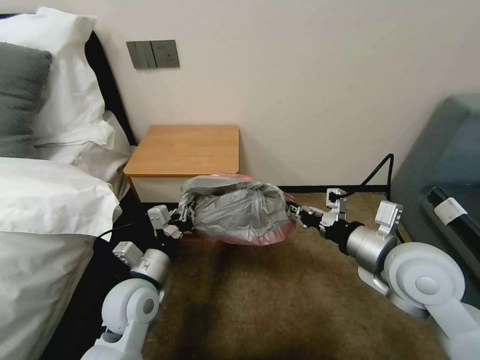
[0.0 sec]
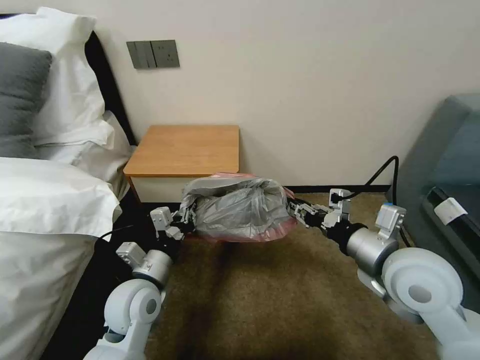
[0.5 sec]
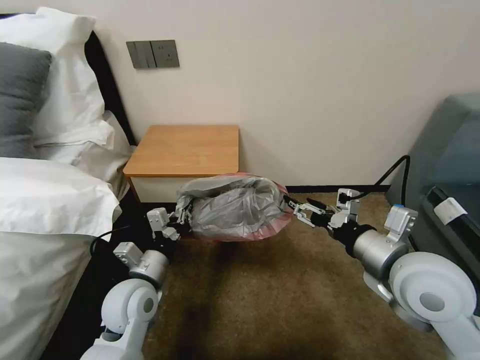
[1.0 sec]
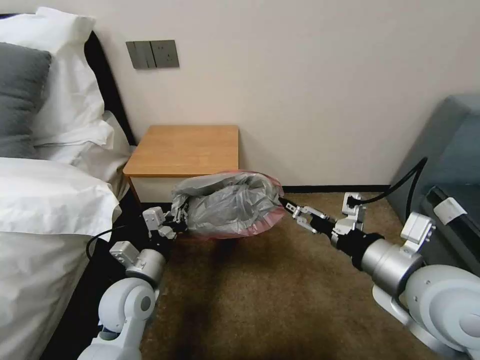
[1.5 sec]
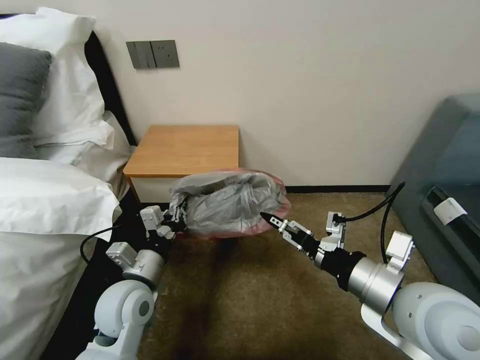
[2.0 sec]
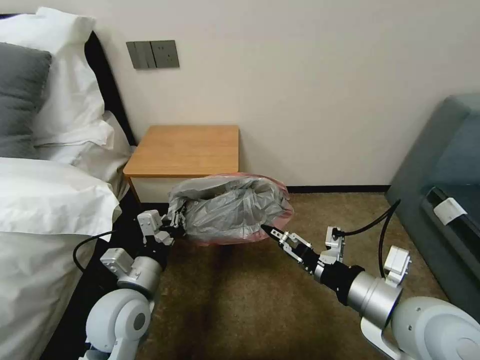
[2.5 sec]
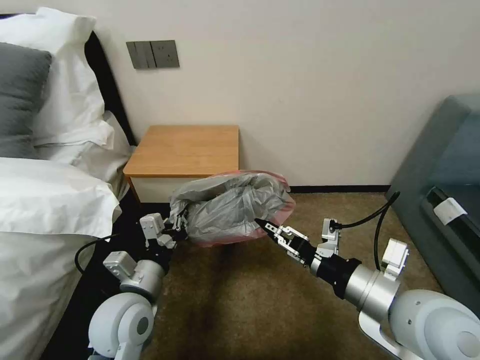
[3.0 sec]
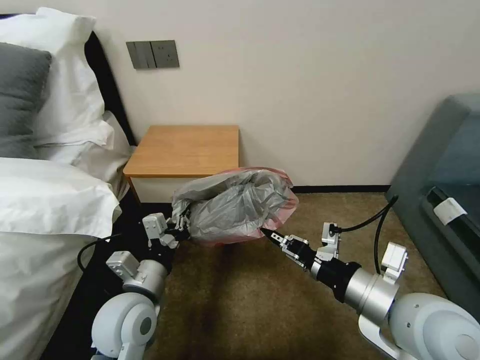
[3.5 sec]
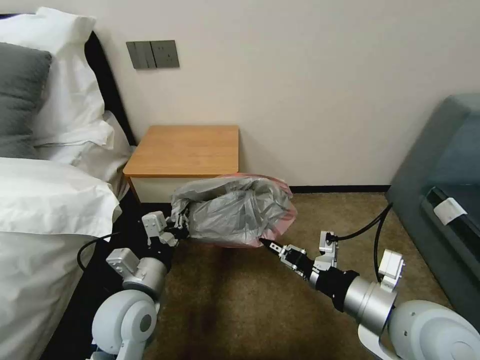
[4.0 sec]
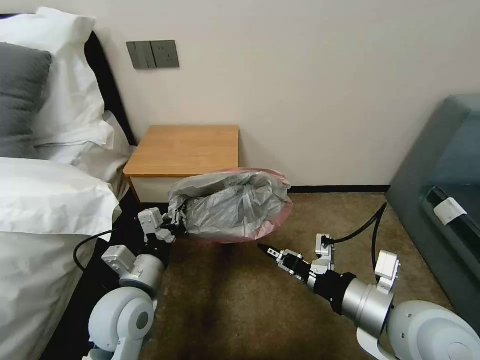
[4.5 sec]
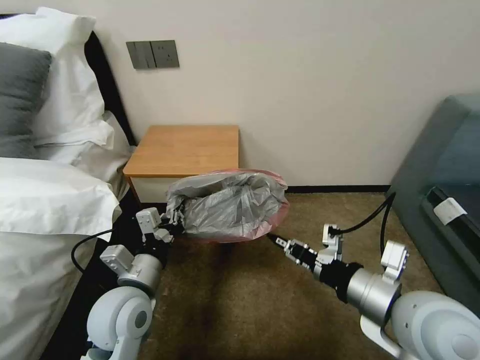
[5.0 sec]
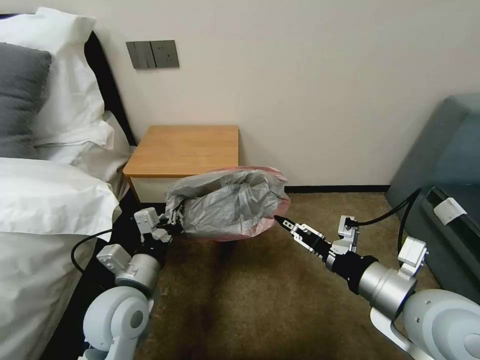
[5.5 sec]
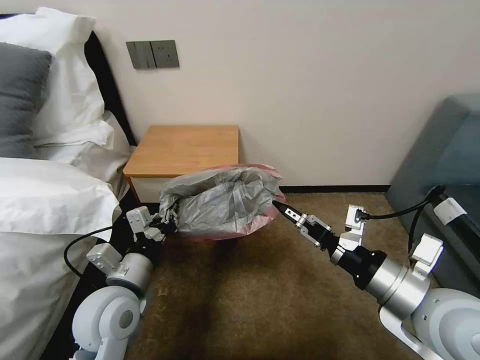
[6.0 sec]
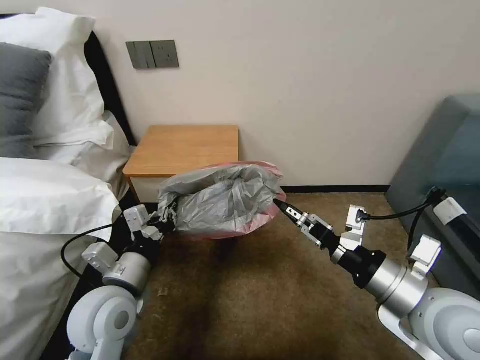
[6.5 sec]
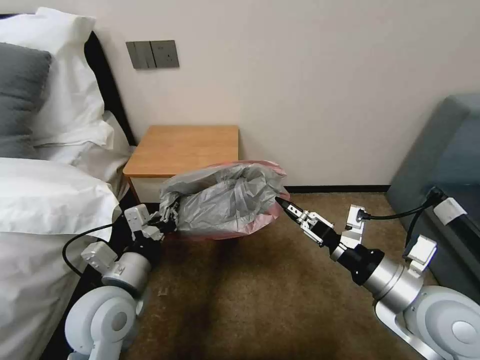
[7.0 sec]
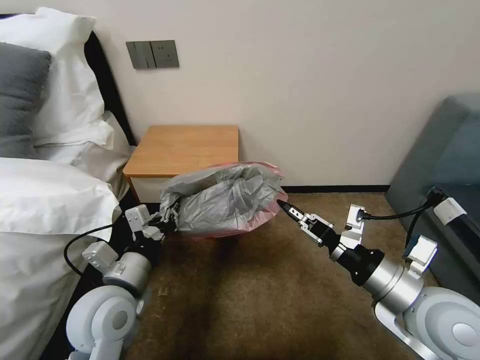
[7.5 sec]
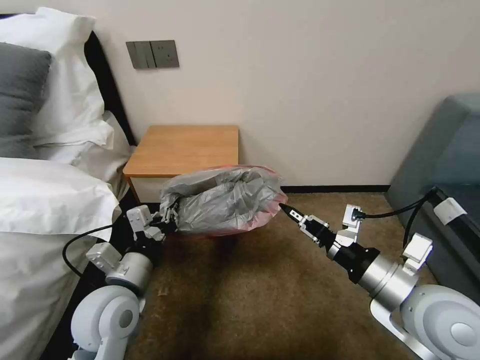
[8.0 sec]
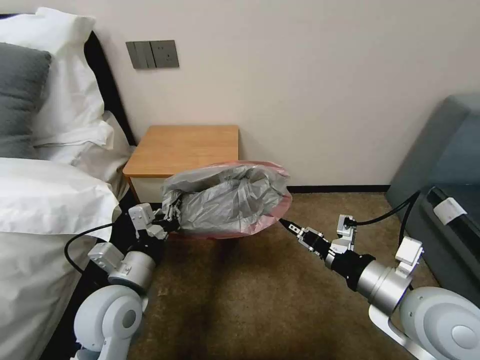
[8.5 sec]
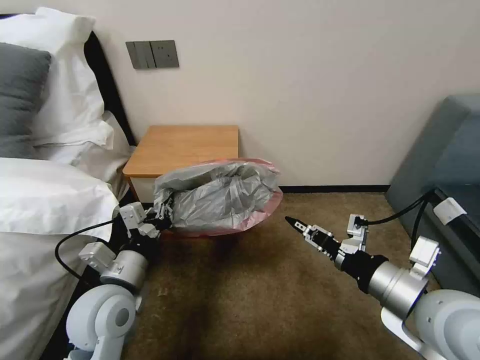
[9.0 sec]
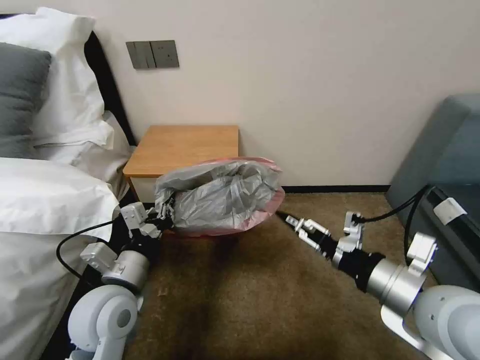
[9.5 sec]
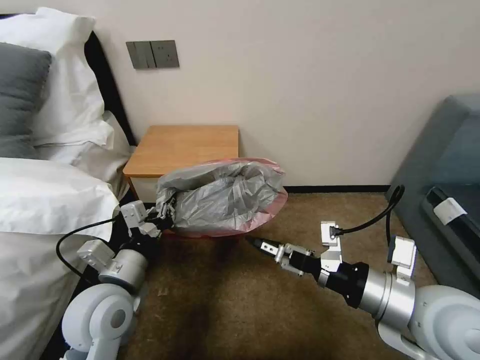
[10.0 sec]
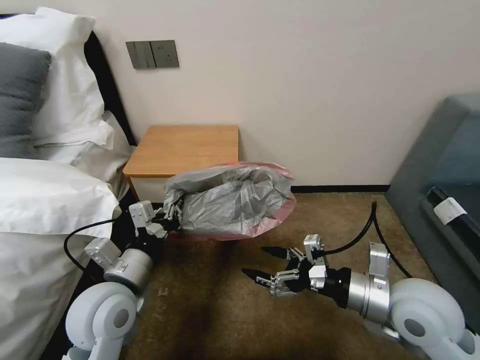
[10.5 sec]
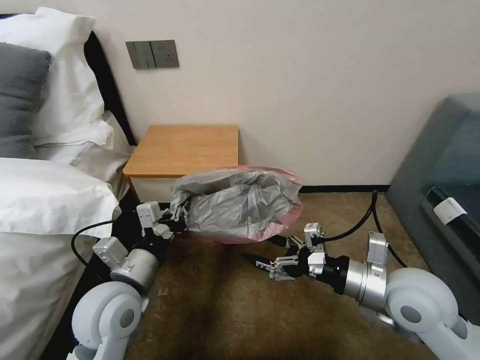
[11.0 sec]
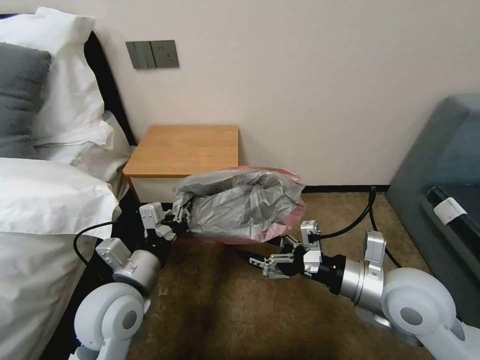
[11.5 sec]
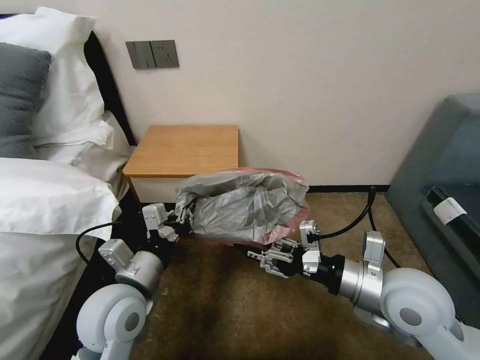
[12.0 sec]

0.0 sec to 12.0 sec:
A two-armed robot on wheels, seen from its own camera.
Task of the whole recording: Pick up the garbage bag from the table and place it over the trash can.
0.0 sec to 2.0 sec: The right gripper moves backward, approximately 5 cm, and opens its fingers.
2.0 sec to 4.0 sec: The right gripper closes up.
4.0 sec to 6.0 sec: The right gripper opens.
6.0 sec to 8.0 sec: The right gripper closes up.
8.0 sec to 10.0 sec: The right gripper opens.
10.0 sec to 12.0 sec: The right gripper shifts by about 5 cm, and closes.

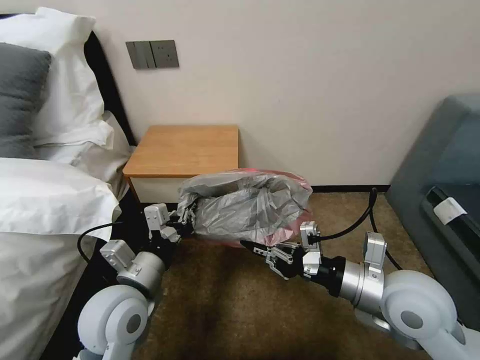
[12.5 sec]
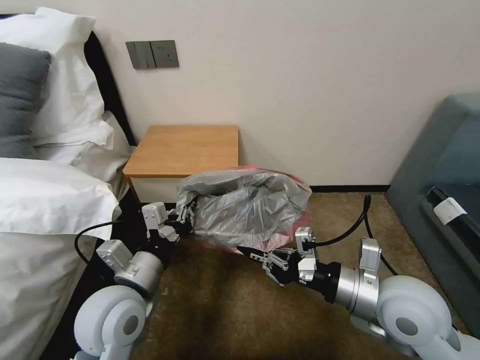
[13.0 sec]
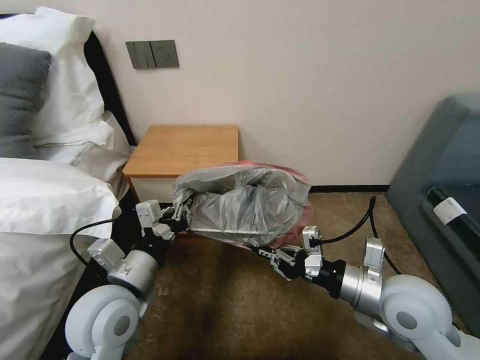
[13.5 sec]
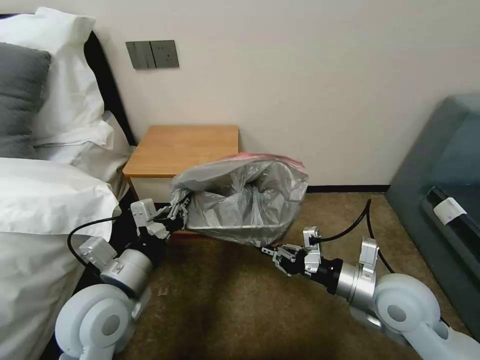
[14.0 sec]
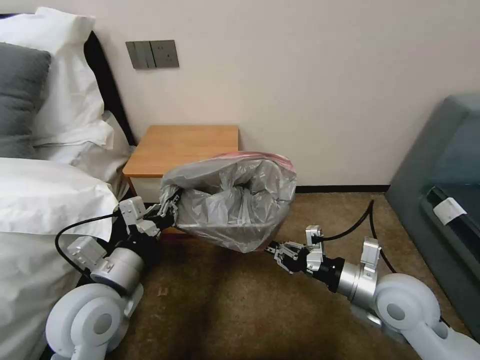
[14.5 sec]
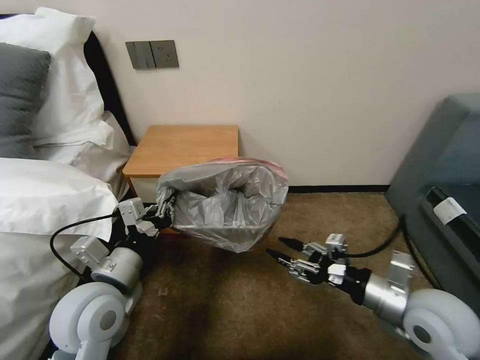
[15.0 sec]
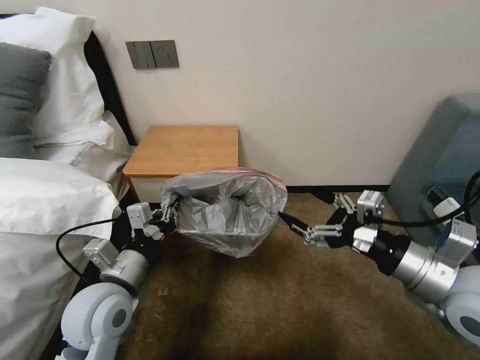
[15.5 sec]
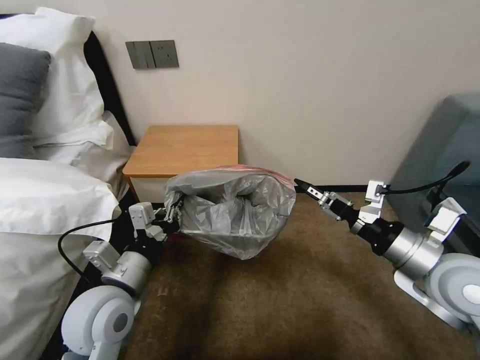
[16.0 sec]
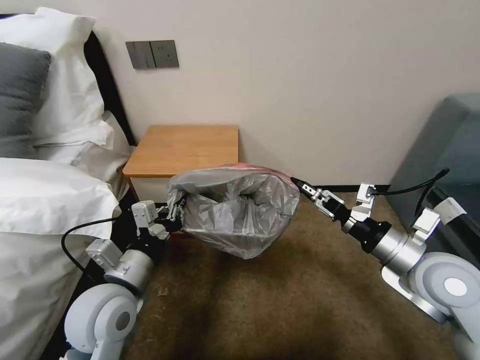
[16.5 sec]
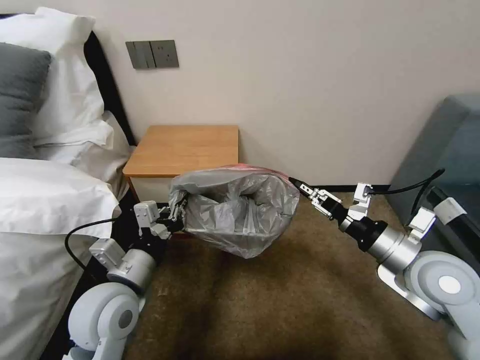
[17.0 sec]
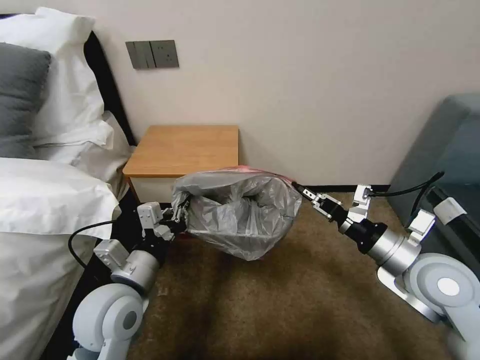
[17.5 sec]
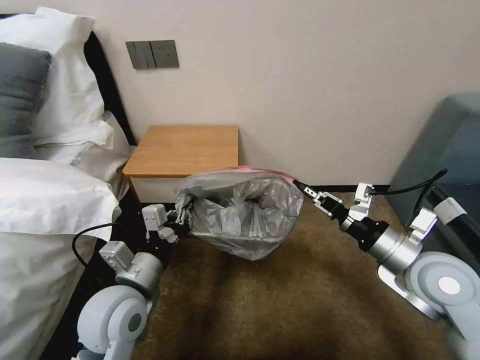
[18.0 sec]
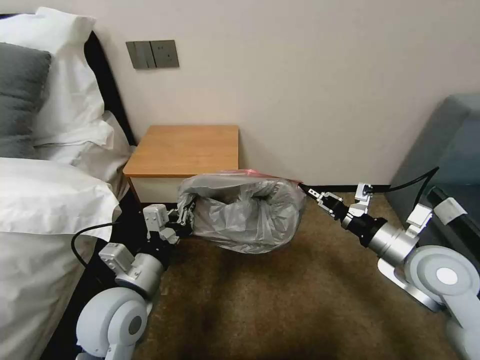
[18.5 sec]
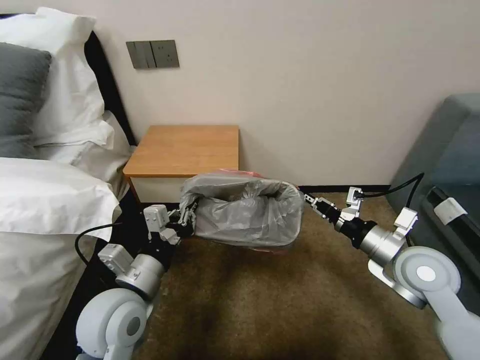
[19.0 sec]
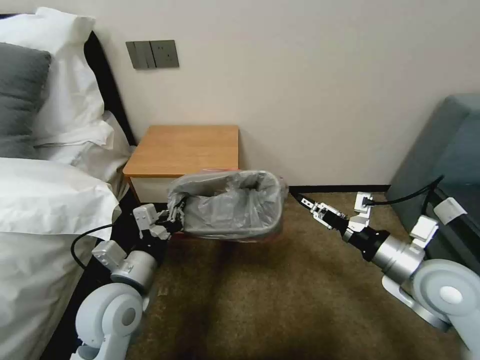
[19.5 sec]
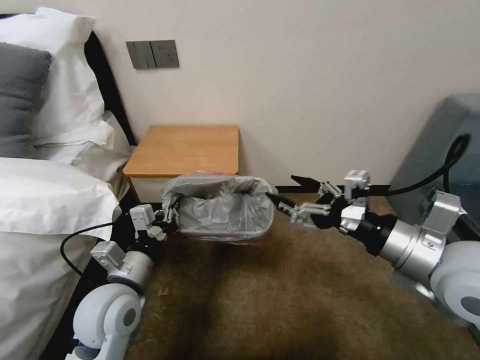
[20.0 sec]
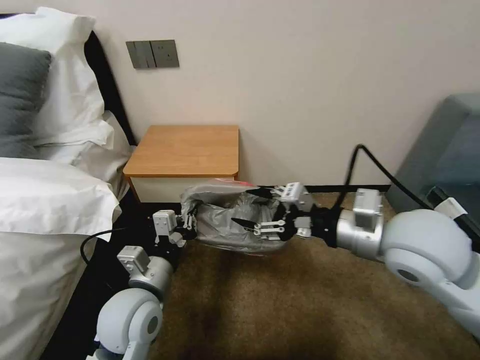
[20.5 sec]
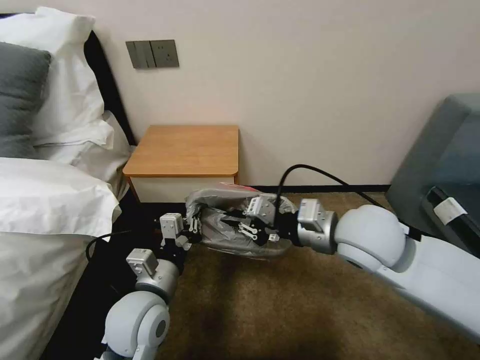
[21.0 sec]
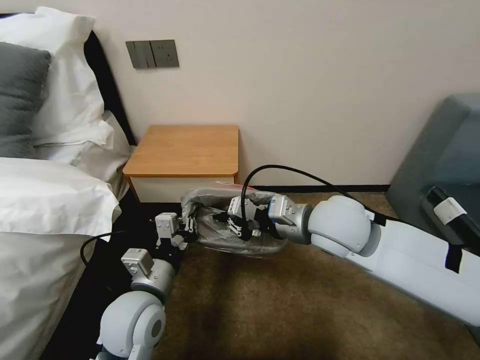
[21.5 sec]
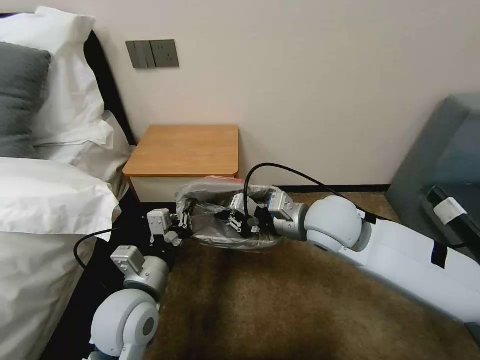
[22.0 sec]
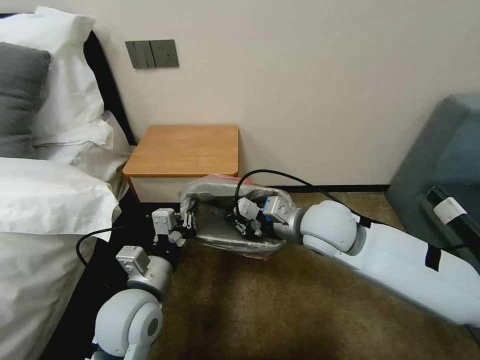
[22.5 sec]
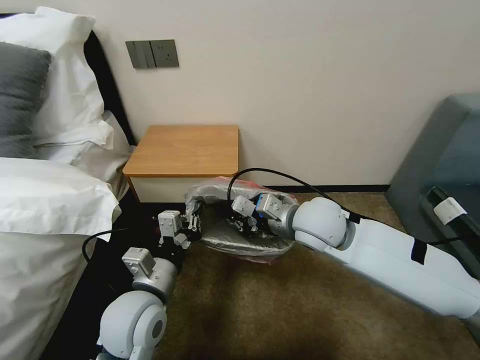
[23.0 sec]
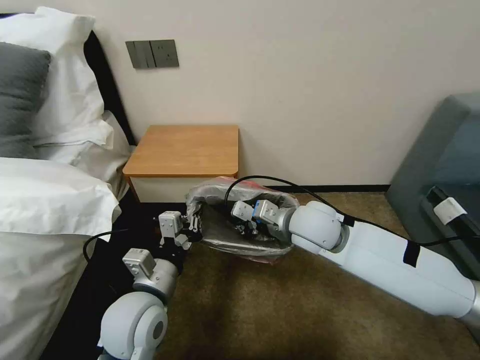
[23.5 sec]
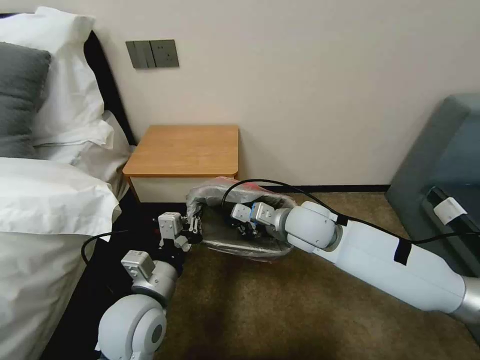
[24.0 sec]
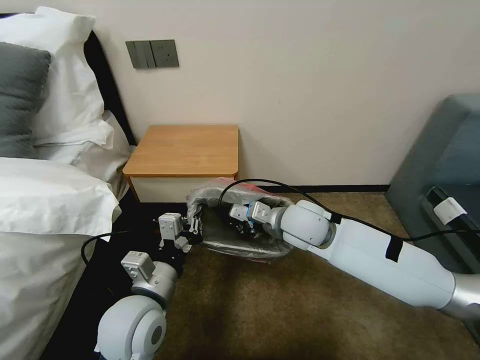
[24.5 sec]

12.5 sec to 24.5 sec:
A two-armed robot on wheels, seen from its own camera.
Task of the whole recording: Pick up the garbage bag from the table and place it over the trash can.
12.5 sec to 14.5 sec: The right gripper heads downward, covering approximately 5 cm.
14.5 sec to 16.5 sec: The right gripper goes roughly 5 cm upward, and opens its fingers.
16.5 sec to 18.5 sec: The right gripper closes.
18.5 sec to 20.5 sec: The right gripper moves upward and to the left, roughly 15 cm, and opens.
20.5 sec to 22.5 sec: The right gripper travels to the left, forward and downward by approximately 15 cm, and closes its fingers.
22.5 sec to 24.5 sec: The right gripper ends up some 5 cm from where it was.

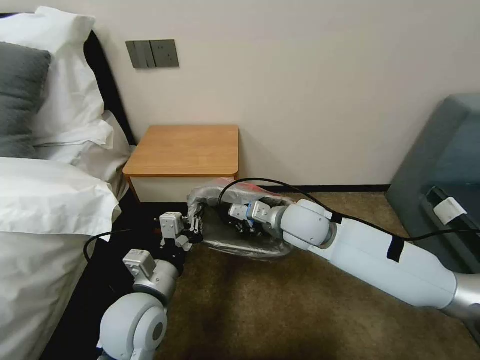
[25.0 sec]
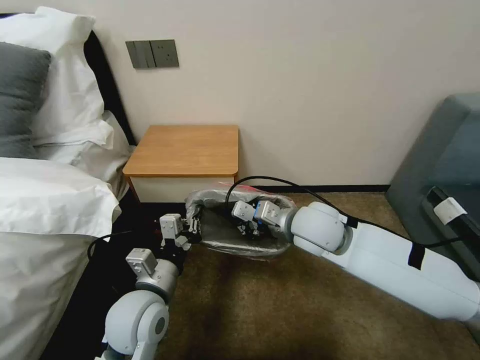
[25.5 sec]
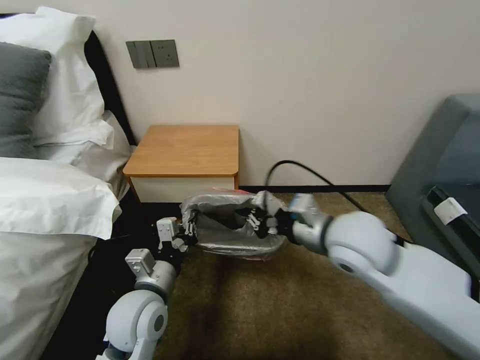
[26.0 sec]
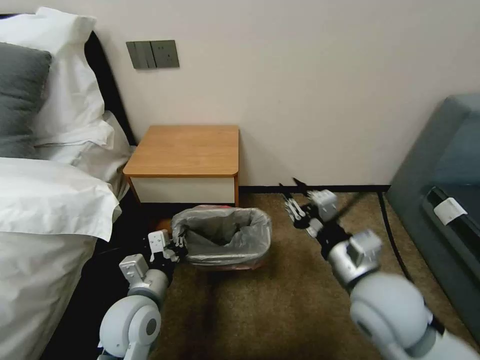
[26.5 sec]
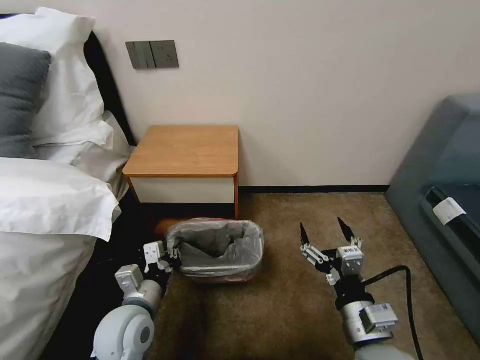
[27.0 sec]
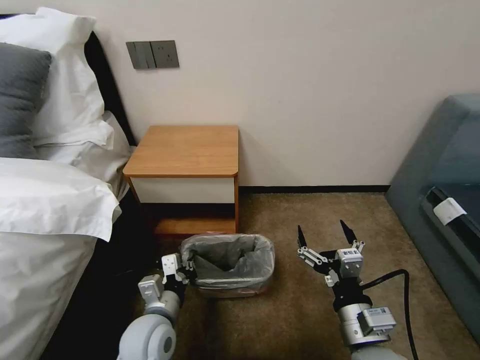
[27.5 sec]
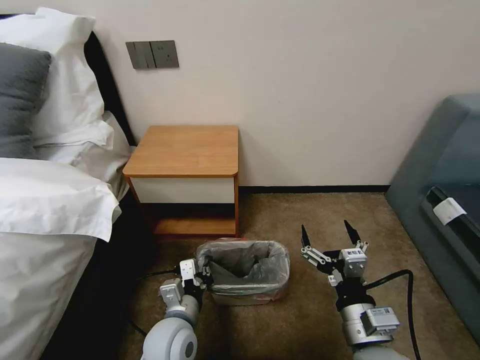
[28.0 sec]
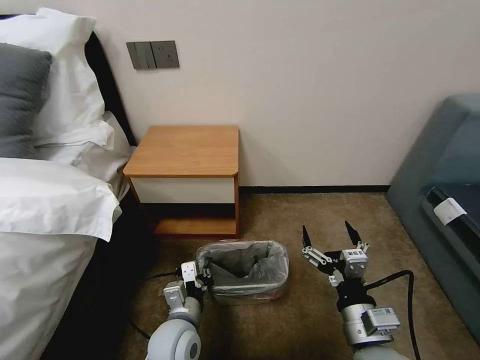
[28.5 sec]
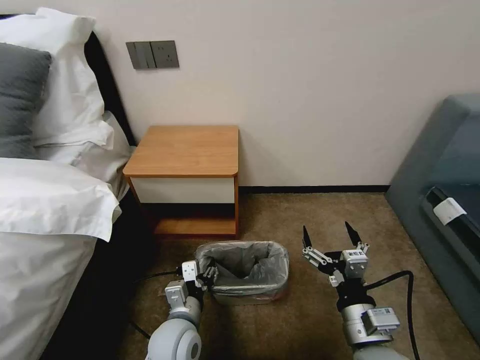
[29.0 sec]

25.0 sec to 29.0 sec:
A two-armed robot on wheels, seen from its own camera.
Task of the whole recording: Pick up the garbage bag from the table and place it over the trash can.
25.0 sec to 27.0 sec: The right gripper heads backward, covering roughly 25 cm, and opens up; the left gripper shifts roughly 5 cm downward.
27.0 sec to 29.0 sec: The left gripper travels to the right and downward by approximately 10 cm, and opens up.
